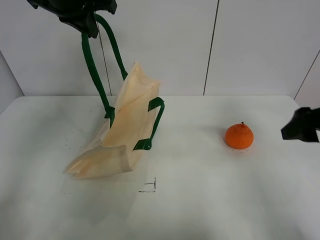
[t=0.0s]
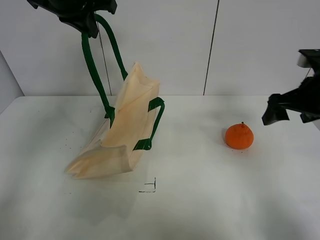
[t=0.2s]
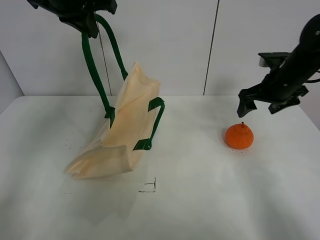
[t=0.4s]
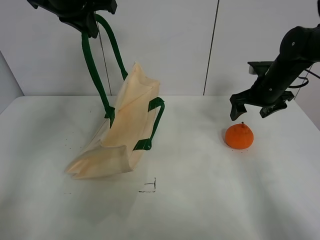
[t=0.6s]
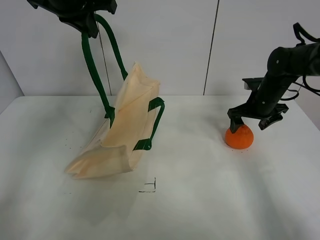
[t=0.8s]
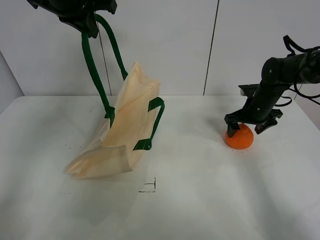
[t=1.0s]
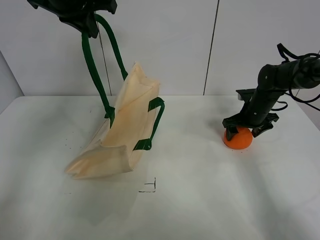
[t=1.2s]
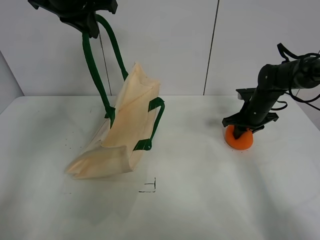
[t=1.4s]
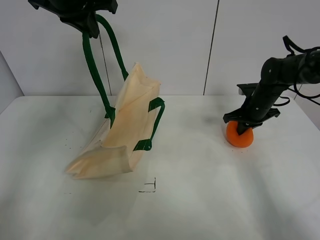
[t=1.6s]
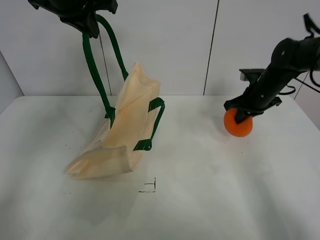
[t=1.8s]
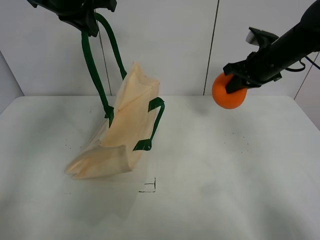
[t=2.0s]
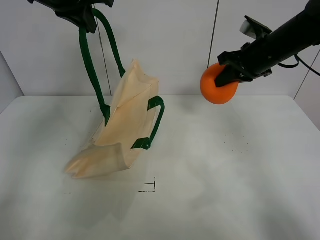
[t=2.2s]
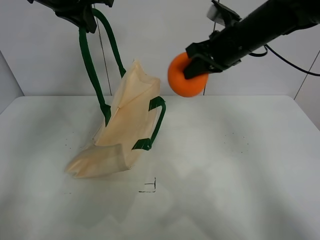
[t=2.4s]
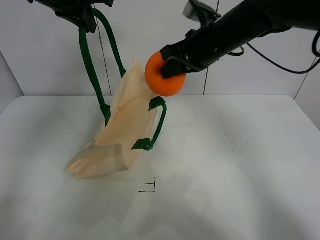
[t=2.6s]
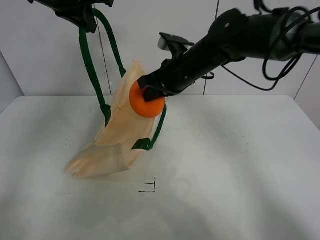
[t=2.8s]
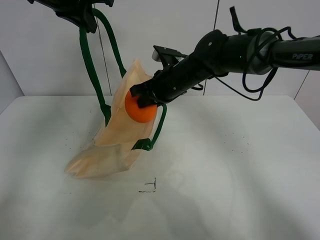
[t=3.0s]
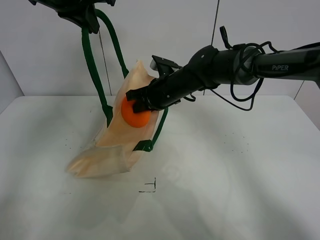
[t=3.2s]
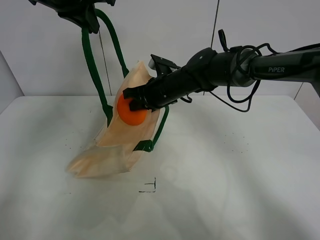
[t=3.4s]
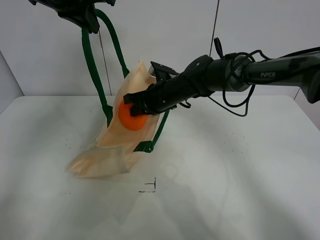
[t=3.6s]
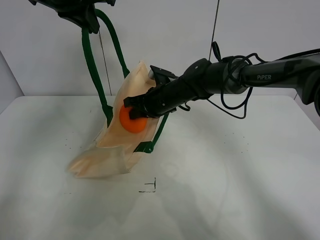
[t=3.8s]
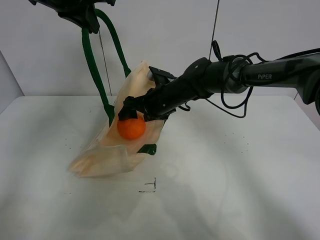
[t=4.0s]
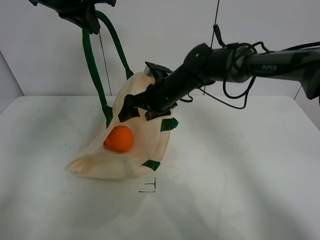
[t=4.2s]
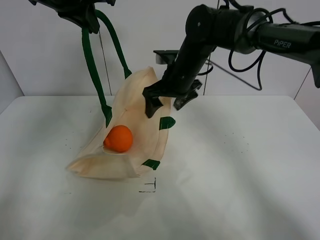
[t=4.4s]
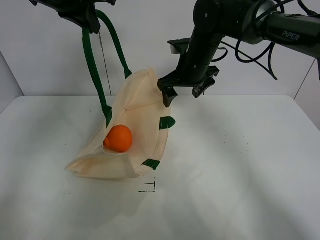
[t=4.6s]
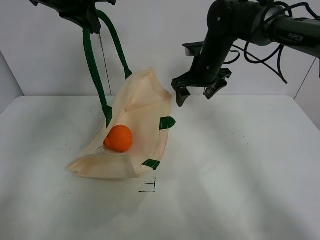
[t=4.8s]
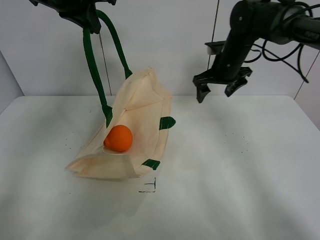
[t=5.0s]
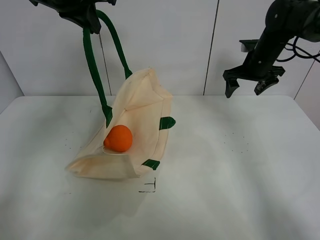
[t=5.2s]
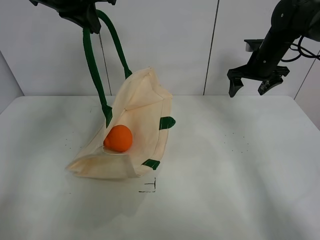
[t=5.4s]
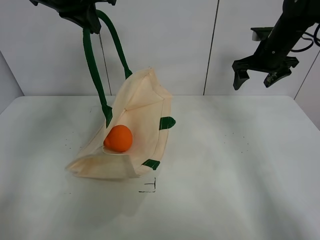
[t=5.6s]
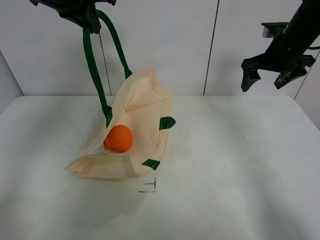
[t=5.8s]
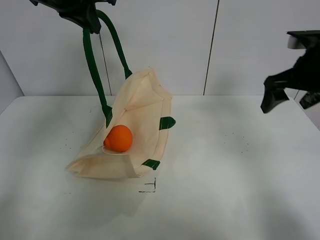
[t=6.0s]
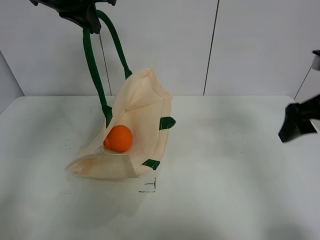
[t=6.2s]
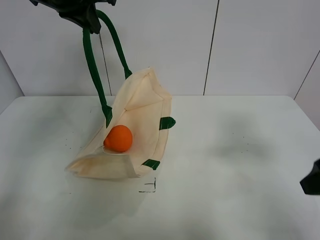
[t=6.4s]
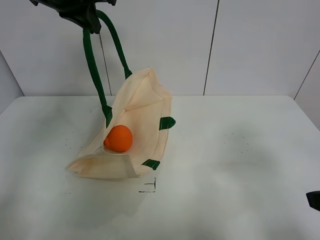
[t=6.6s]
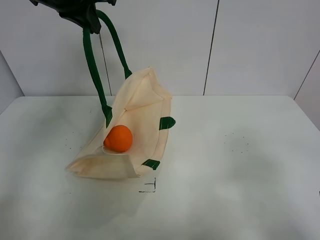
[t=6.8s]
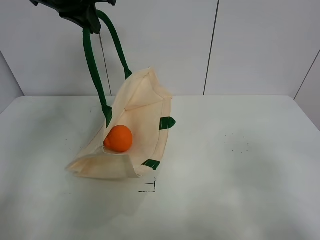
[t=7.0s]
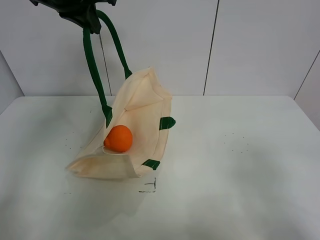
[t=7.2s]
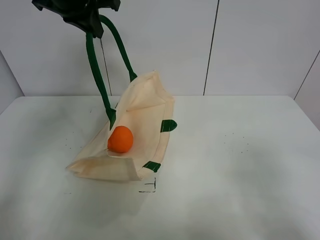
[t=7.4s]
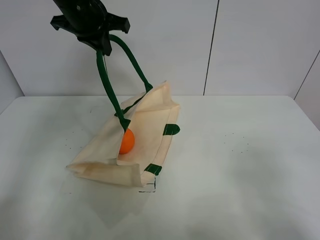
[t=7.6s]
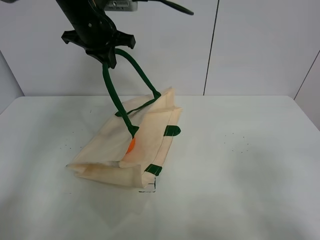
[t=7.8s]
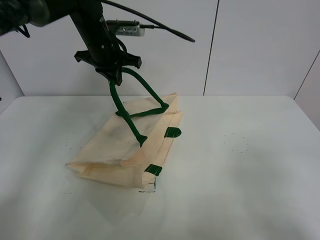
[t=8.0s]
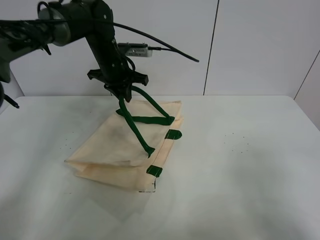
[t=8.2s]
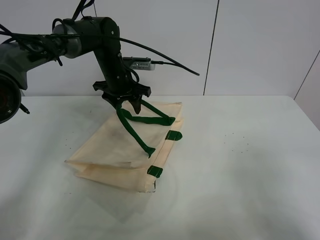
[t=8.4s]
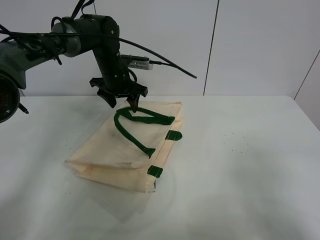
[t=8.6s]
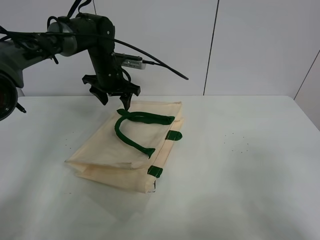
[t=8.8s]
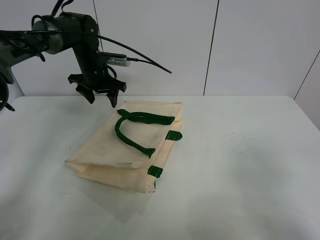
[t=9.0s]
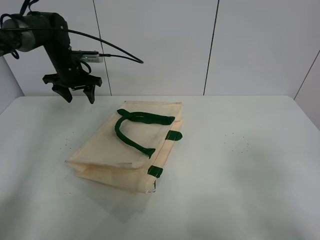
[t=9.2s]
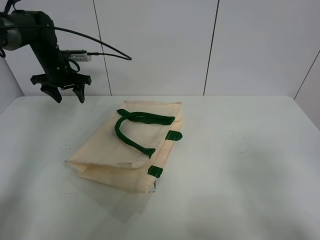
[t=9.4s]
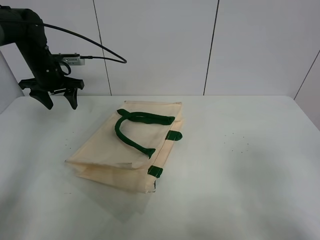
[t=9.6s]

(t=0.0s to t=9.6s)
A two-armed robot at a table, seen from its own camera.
Task of the whole recording: open the white linen bag and put the orange in the bag.
Step, t=0.0s - t=1.4s: Grasp the orange with right gripper.
Step, t=1.6s - t=4.4s: Place the orange in the handbag with right gripper.
Step, t=4.6s - t=8.6s: Put down the handbag with left gripper.
t=0.0s - t=1.6s: The right gripper travels forward and downward by approximately 25 cm, and closes its fingers.
t=1.6s - t=3.2s: The right gripper is displaced to the left by approximately 25 cm.
t=3.2s - t=4.8s: The right gripper moves to the right, some 10 cm, and opens its fingers.
t=4.8s - t=6.4s: The right gripper goes approximately 35 cm backward and to the right.
t=6.4s - t=8.0s: The right gripper shifts about 10 cm backward; the left gripper heads downward and forward, covering approximately 15 cm.
t=8.0s - t=9.6s: The left gripper shifts roughly 15 cm to the left, and opens its fingers.

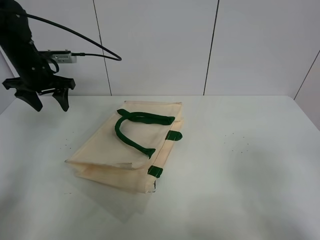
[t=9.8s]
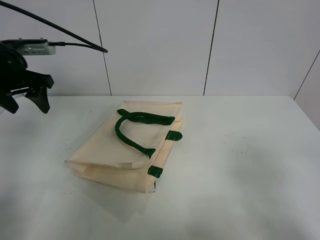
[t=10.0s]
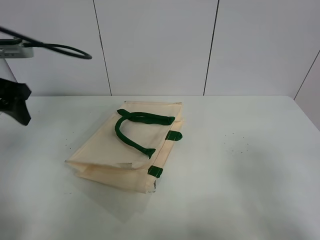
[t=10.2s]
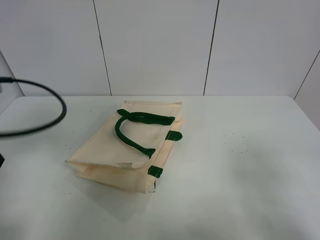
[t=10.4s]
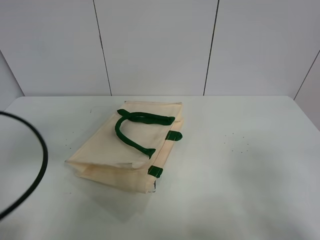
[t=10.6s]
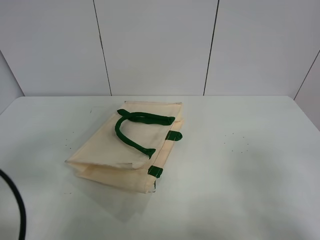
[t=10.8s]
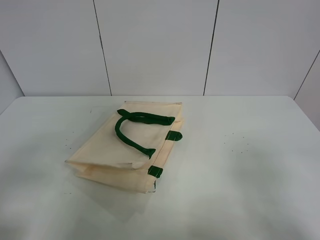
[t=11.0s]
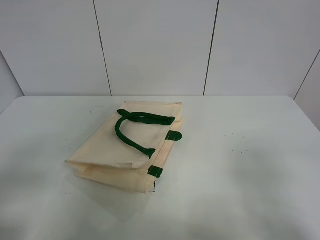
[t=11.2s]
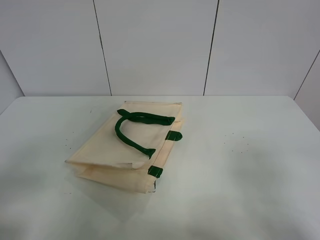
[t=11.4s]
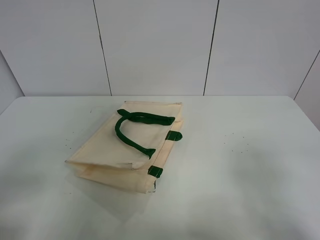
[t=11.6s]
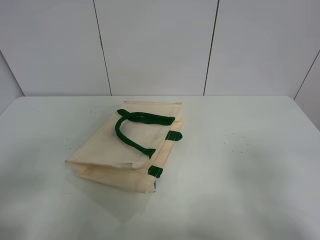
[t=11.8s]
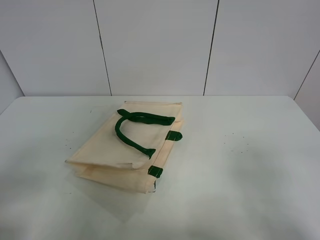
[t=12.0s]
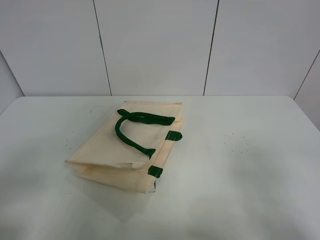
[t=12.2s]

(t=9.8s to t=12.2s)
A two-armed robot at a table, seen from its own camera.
Task of the whole recording: open the white linen bag and put the orange in the bag.
t=9.8s - t=11.0s: The left gripper goes some 35 cm backward.
